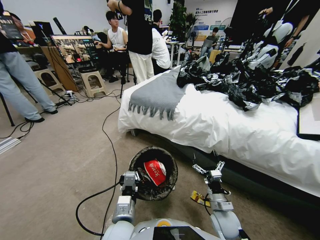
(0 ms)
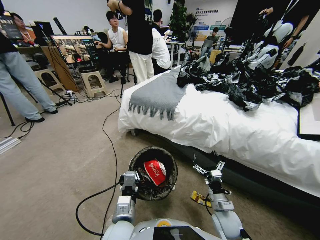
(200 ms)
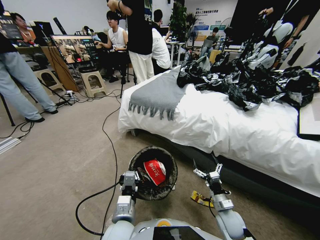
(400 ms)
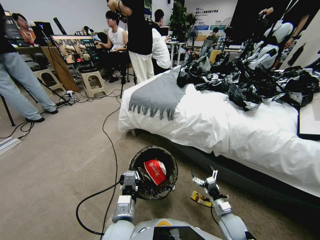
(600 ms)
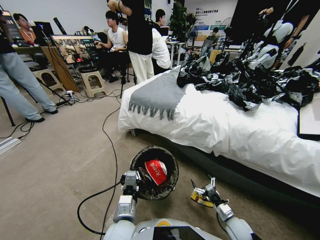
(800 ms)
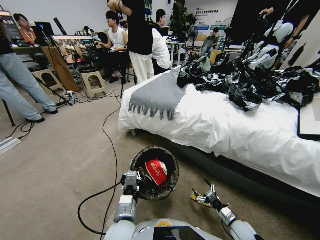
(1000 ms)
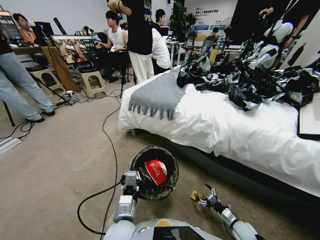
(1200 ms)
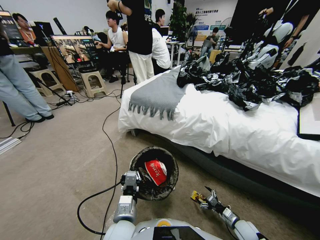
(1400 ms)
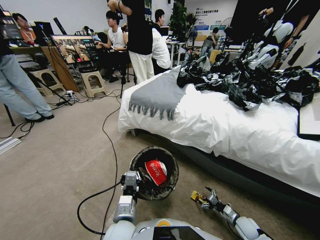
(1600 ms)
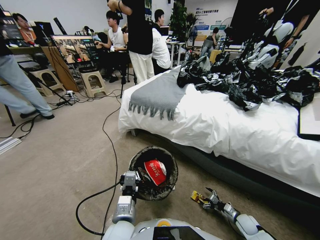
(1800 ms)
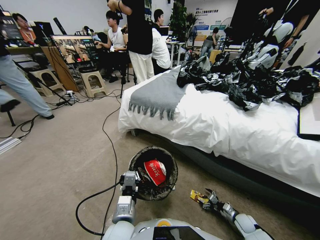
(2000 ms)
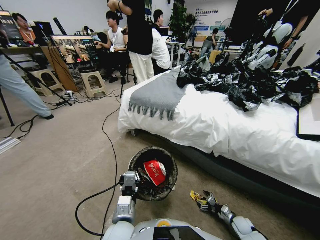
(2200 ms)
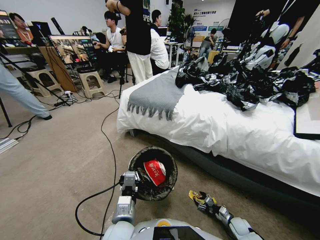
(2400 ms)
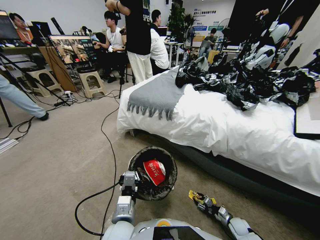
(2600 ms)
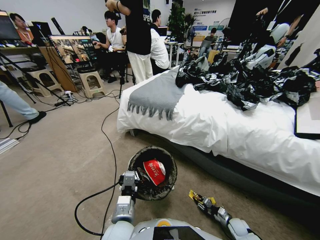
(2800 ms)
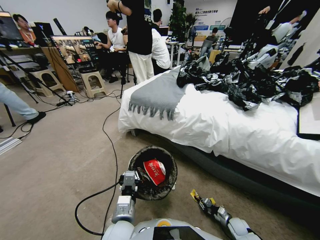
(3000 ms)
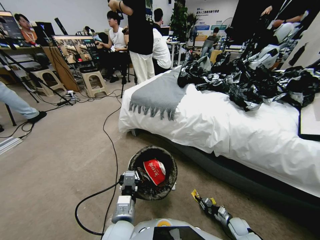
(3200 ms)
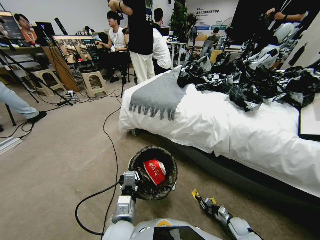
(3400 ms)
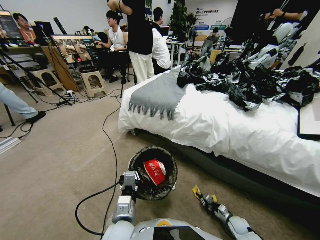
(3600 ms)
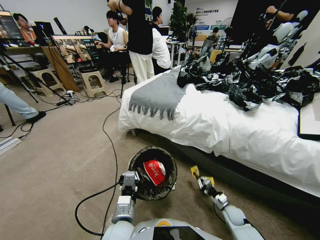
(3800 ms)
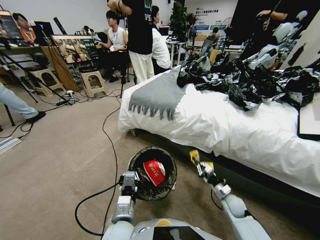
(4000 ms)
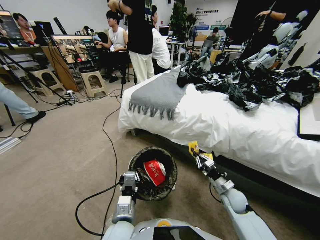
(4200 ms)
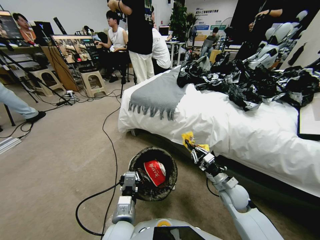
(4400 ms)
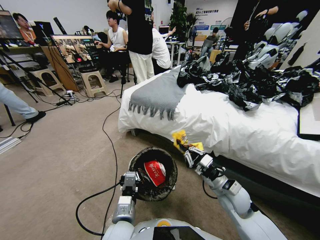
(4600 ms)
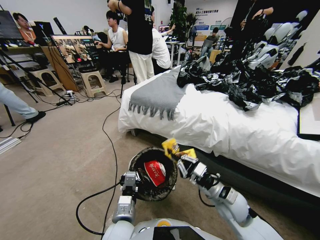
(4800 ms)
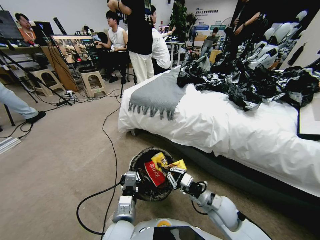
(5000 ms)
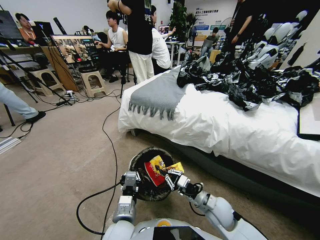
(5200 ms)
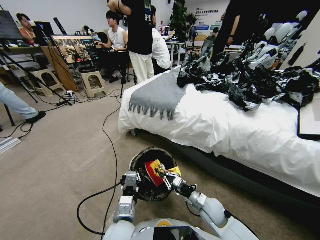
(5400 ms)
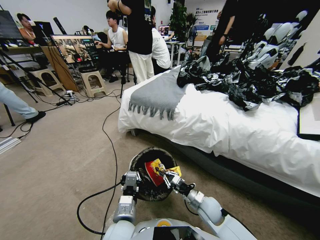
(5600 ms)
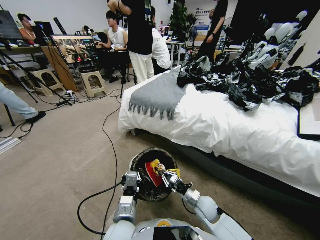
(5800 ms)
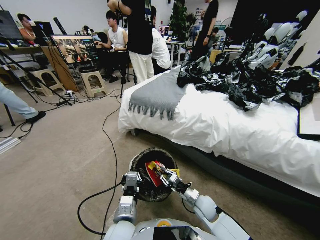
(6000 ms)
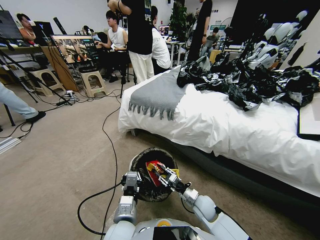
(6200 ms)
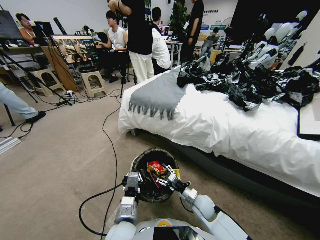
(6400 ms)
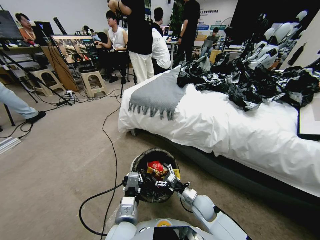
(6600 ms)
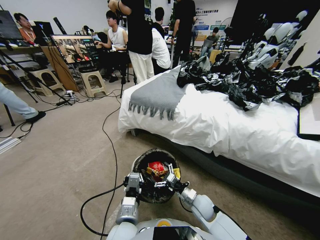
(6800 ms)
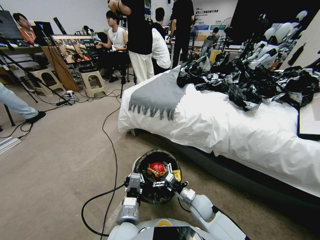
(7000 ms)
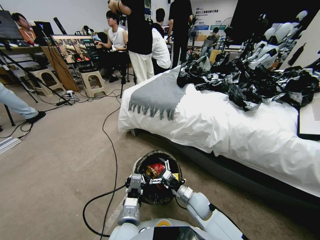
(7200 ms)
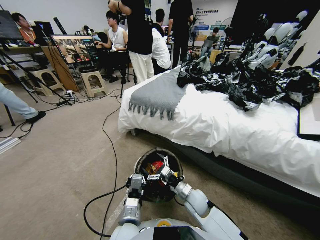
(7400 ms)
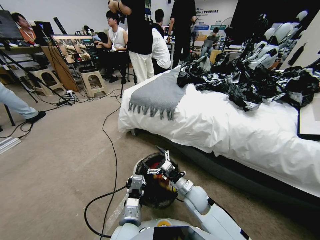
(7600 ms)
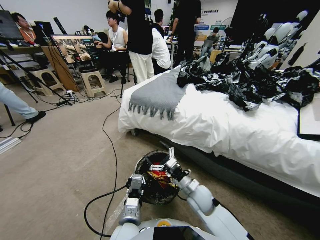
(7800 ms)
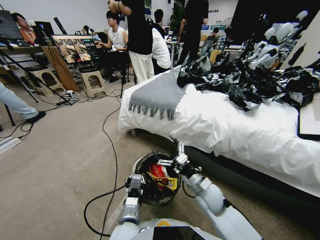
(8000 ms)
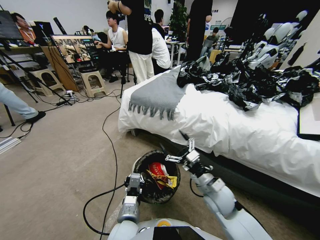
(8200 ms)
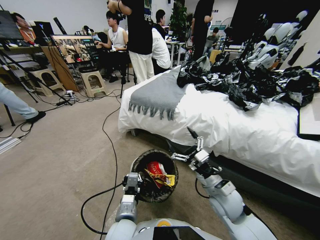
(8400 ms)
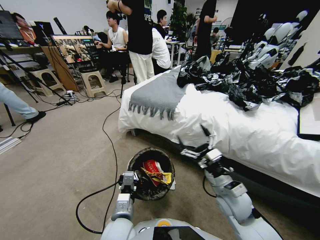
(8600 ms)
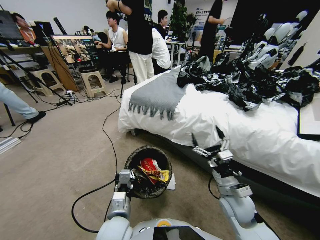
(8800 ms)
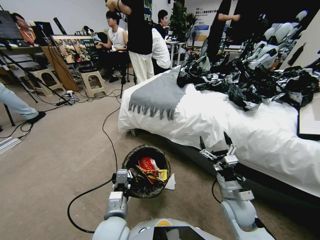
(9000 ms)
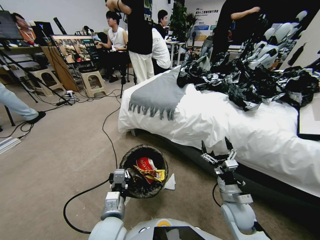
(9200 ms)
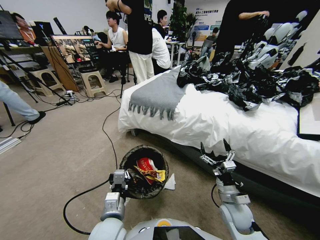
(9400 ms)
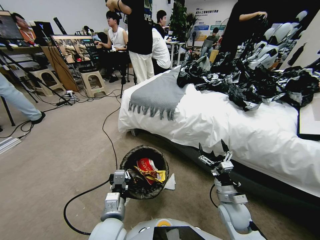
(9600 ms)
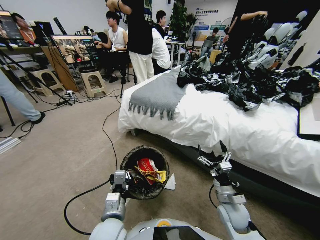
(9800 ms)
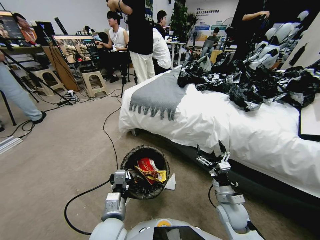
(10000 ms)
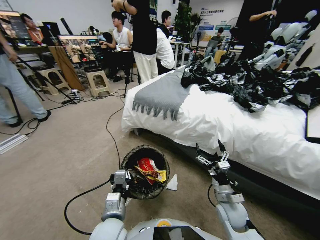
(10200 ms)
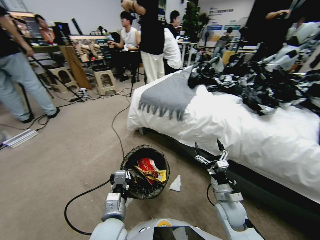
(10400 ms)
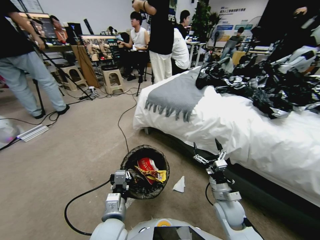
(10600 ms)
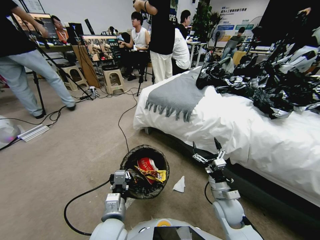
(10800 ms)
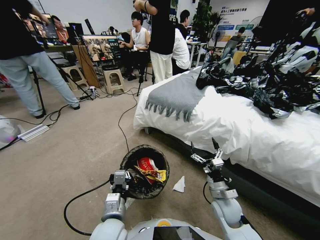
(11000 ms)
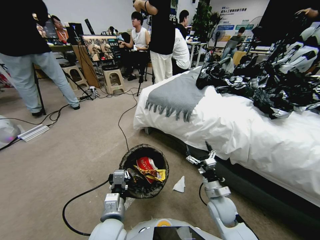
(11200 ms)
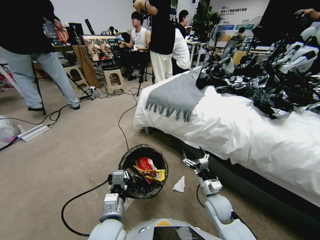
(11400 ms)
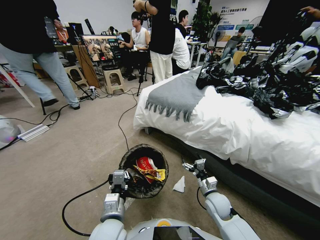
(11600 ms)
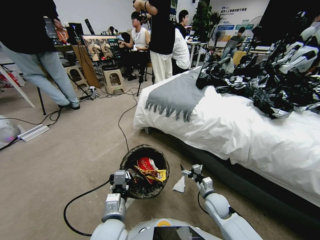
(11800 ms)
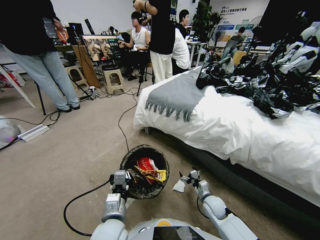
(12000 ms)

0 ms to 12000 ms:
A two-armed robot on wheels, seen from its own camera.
Task of the whole recording: Pick up the trash bin, then pick up the garbage from the floor and place it into the trash bin.
0 ms to 1600 ms: The right gripper shifts about 25 cm to the right and downward.
1600 ms to 3000 ms: The right gripper shifts some 5 cm downward, and closes up.
3000 ms to 4400 ms: The right gripper shifts about 35 cm upward and to the left.
4400 ms to 6000 ms: The right gripper travels downward and to the left by about 15 cm.
6000 ms to 7600 ms: The right gripper shifts about 10 cm upward, and opens.
7600 ms to 9000 ms: The right gripper heads to the right, covering approximately 15 cm. The left gripper changes place by about 5 cm.
10400 ms to 12000 ms: The right gripper shifts approximately 10 cm downward.

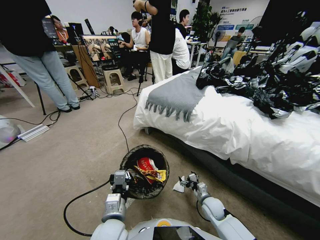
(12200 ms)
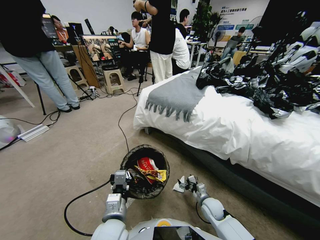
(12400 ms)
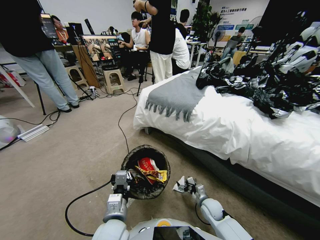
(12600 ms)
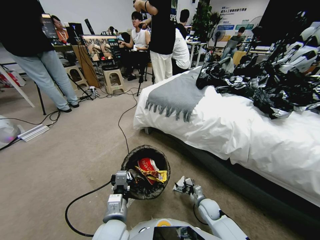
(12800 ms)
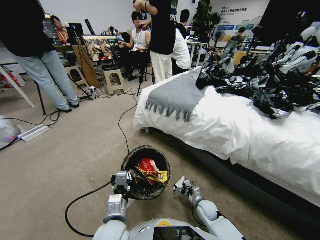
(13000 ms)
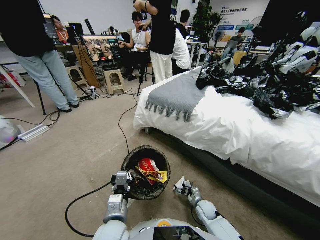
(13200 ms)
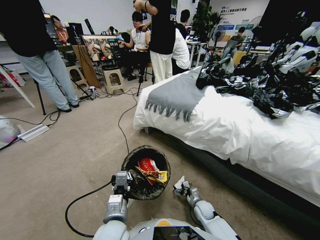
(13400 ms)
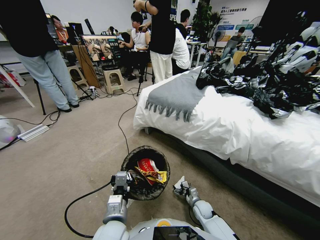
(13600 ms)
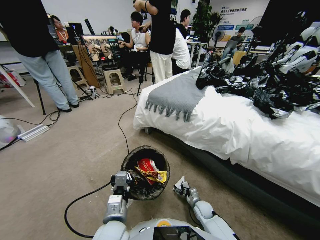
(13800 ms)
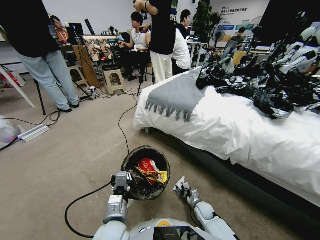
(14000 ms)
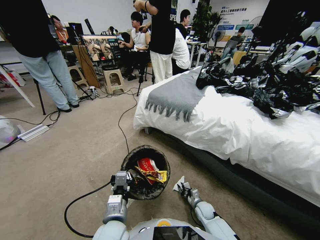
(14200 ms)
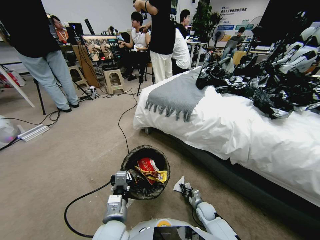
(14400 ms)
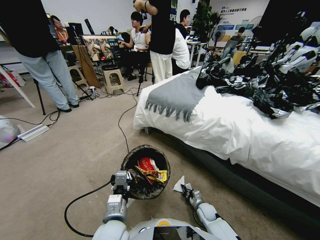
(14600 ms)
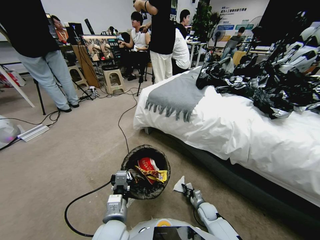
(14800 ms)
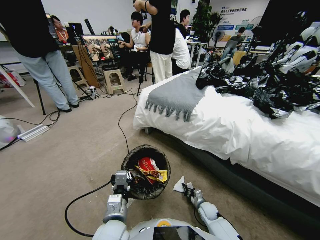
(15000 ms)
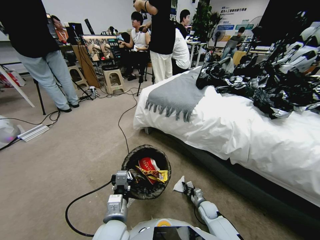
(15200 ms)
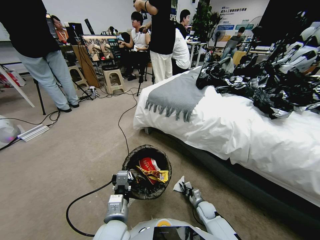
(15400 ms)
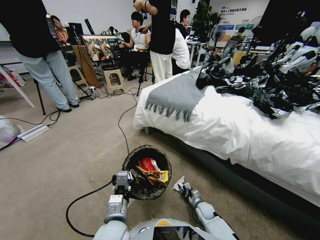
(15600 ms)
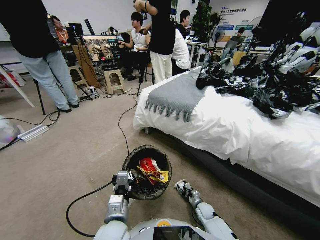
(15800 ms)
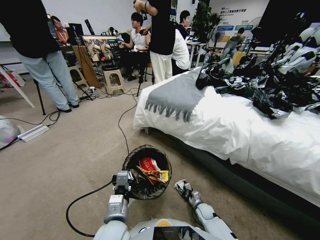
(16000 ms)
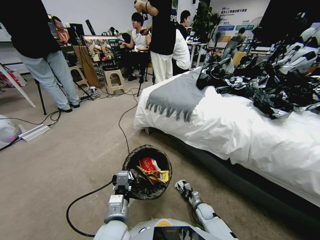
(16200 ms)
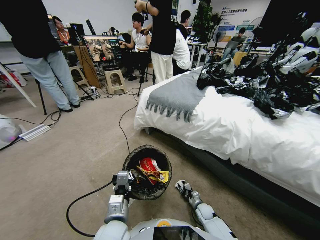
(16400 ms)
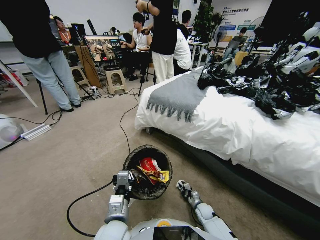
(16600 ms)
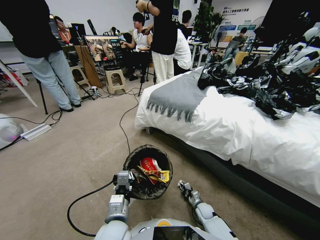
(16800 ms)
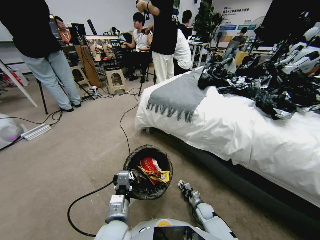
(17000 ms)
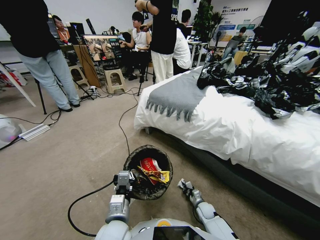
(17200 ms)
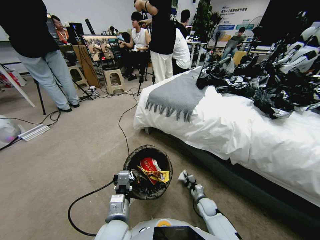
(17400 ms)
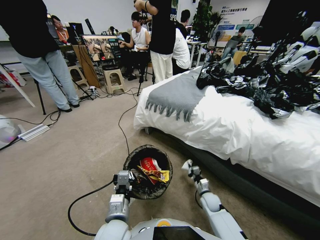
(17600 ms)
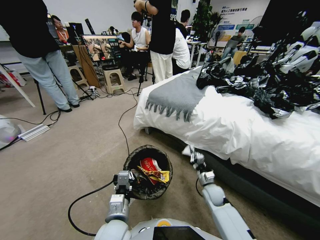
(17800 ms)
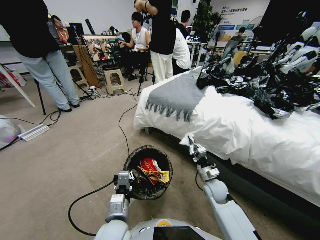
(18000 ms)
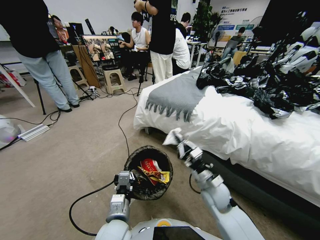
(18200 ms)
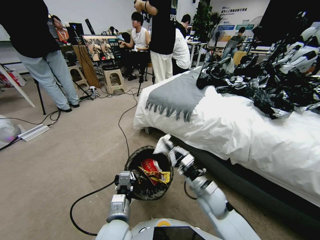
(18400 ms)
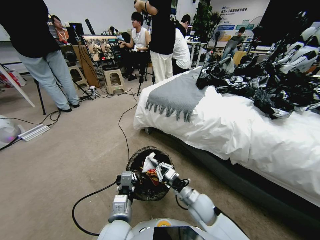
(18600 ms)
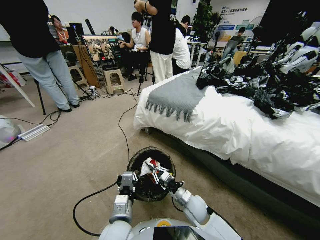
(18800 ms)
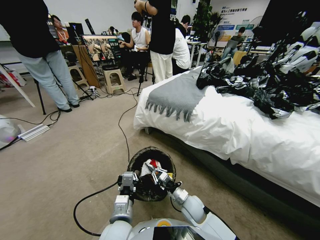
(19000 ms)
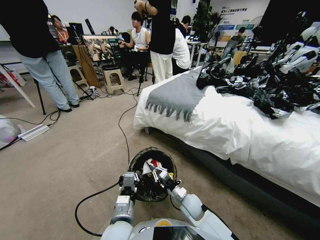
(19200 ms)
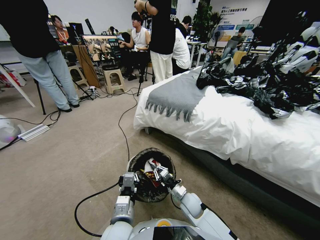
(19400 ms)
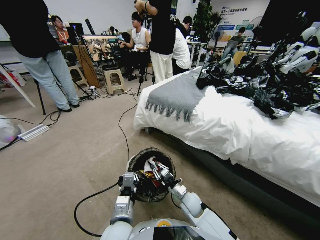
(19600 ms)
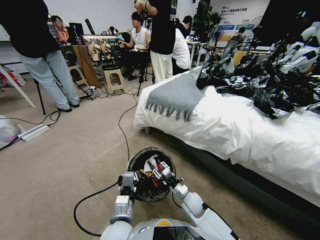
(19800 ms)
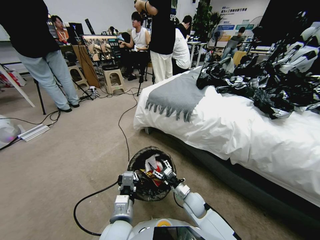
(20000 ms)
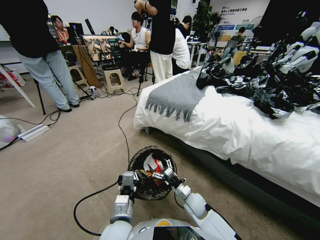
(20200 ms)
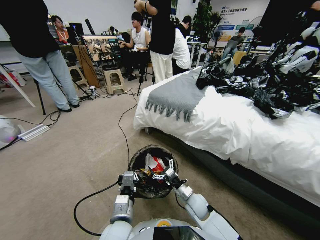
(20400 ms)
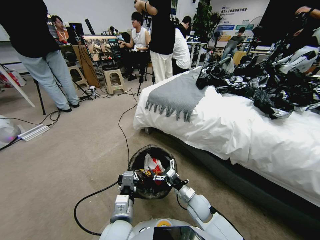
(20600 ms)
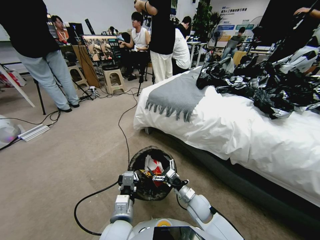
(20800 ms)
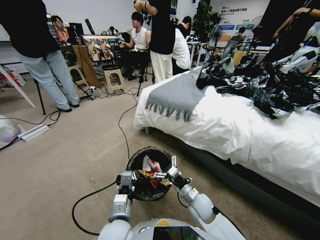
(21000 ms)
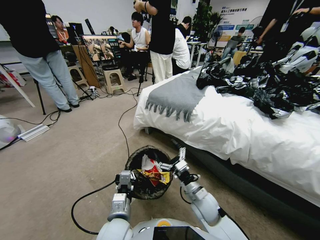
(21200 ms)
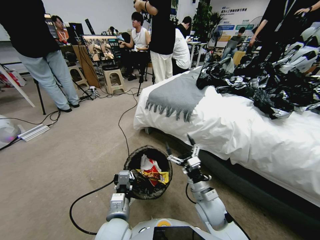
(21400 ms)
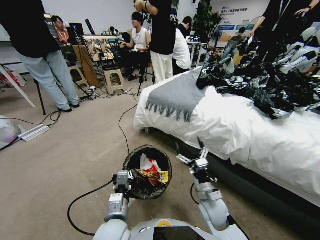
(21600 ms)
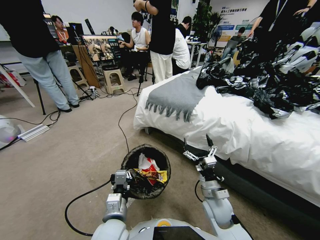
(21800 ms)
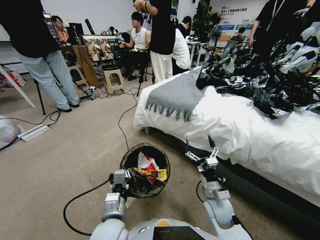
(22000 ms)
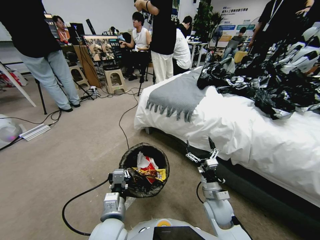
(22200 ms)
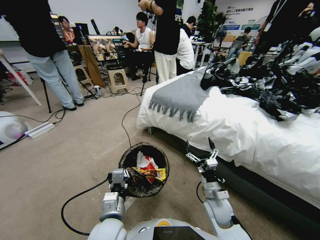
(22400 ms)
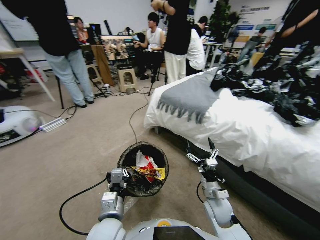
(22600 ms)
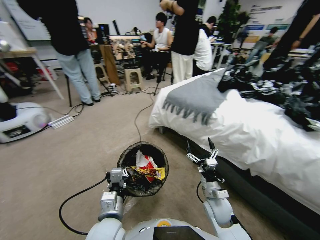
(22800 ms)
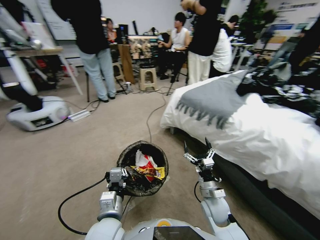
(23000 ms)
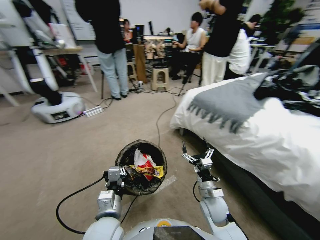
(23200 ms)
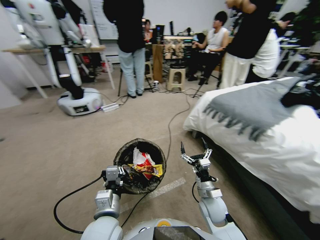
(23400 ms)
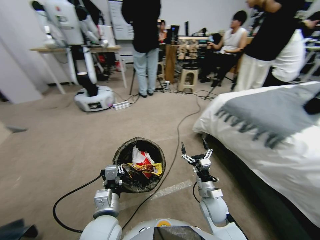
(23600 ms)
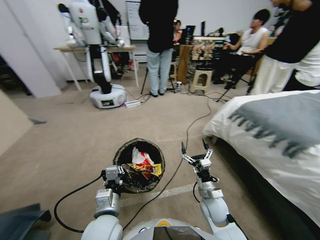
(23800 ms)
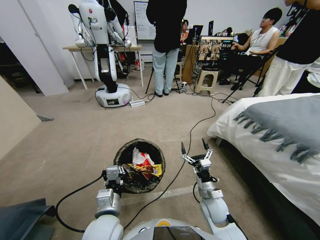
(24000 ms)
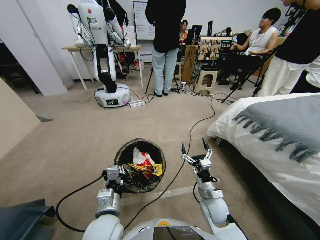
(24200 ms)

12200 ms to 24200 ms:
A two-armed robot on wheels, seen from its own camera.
Task of the whole recording: Pick up the trash bin, then pick up the garbage from the floor and place it into the trash bin.
12200 ms to 13800 ms: The right gripper shifts approximately 10 cm downward, and closes its fingers.
13800 ms to 15200 ms: The right gripper closes.
15200 ms to 16600 ms: The right gripper opens, then closes again.
16600 ms to 18200 ms: The right gripper is displaced upward by approximately 30 cm.
18200 ms to 19800 ms: The right gripper goes approximately 15 cm downward, and opens.
19800 ms to 21200 ms: The right gripper travels upward by some 10 cm, and opens its fingers.
21200 ms to 22600 ms: The right gripper is displaced to the right by some 5 cm.
